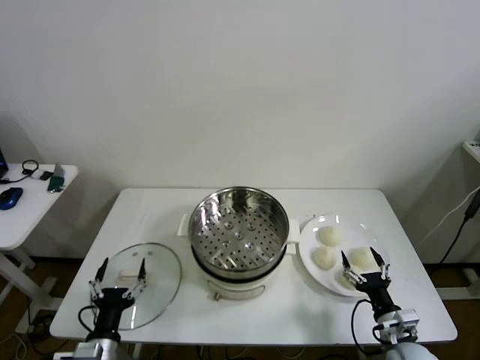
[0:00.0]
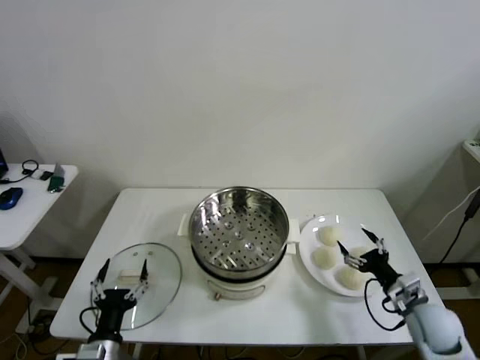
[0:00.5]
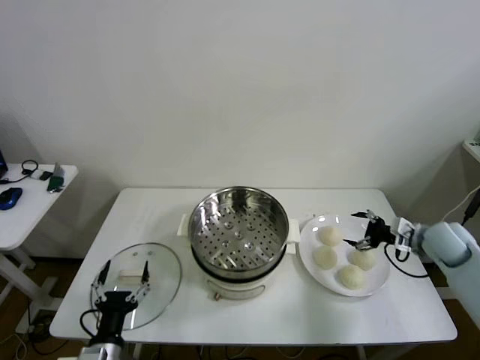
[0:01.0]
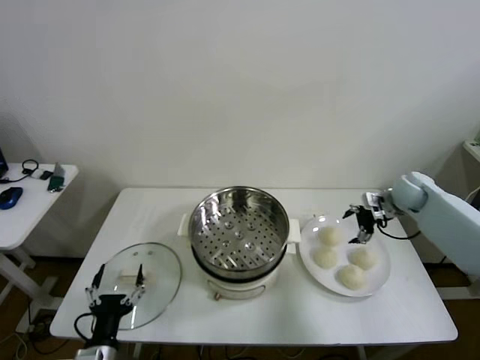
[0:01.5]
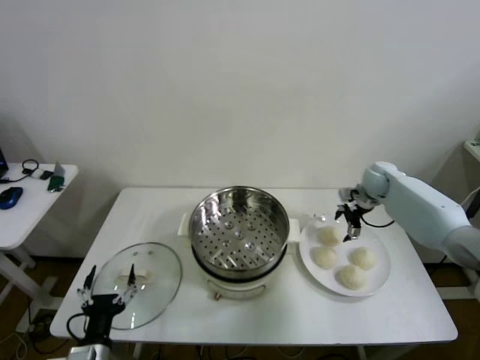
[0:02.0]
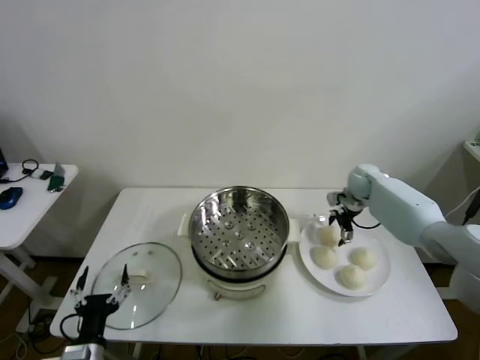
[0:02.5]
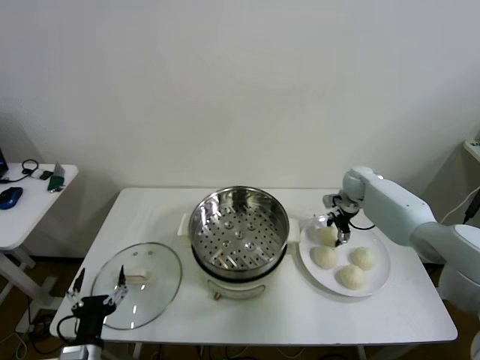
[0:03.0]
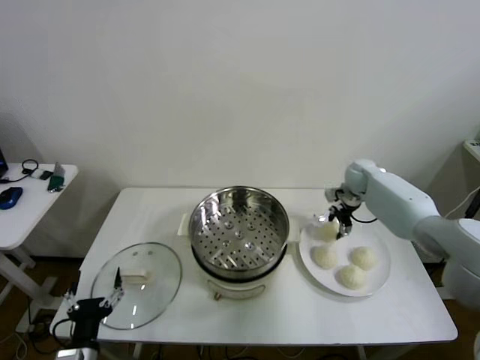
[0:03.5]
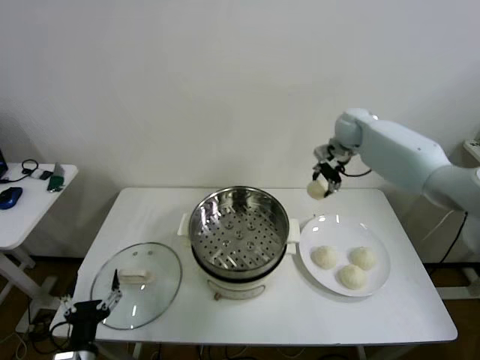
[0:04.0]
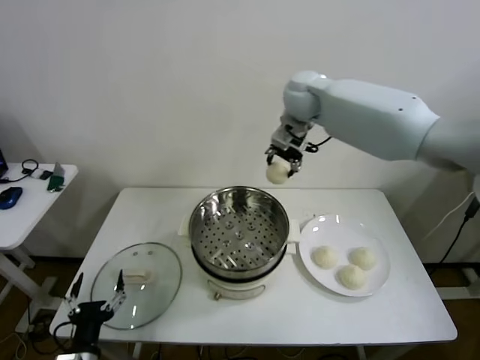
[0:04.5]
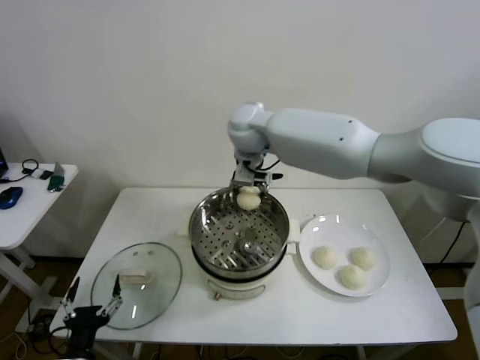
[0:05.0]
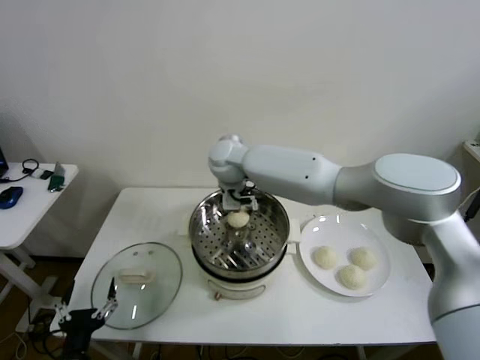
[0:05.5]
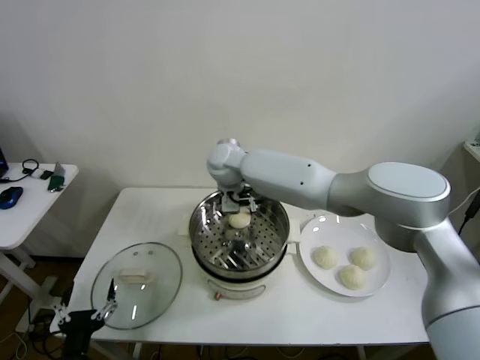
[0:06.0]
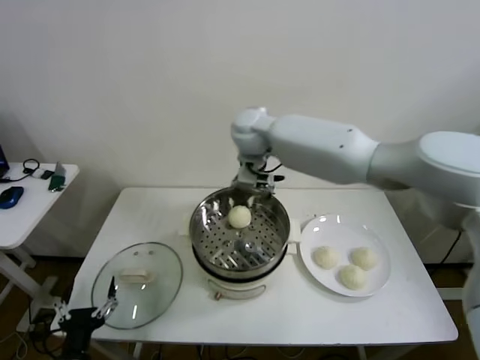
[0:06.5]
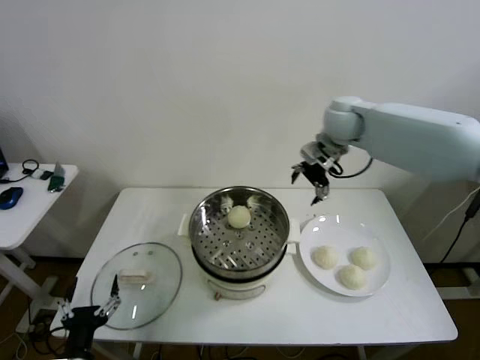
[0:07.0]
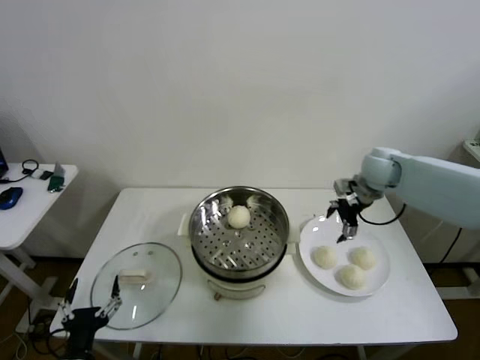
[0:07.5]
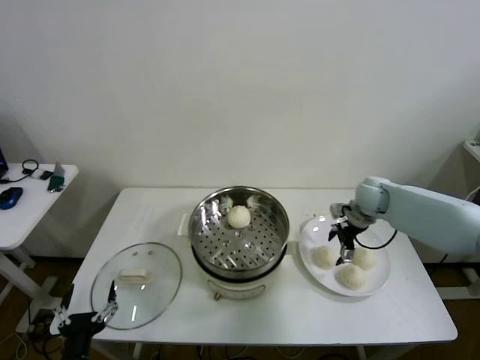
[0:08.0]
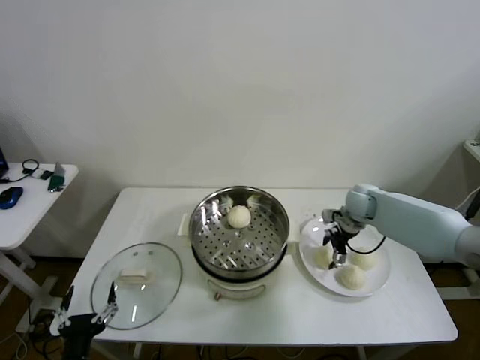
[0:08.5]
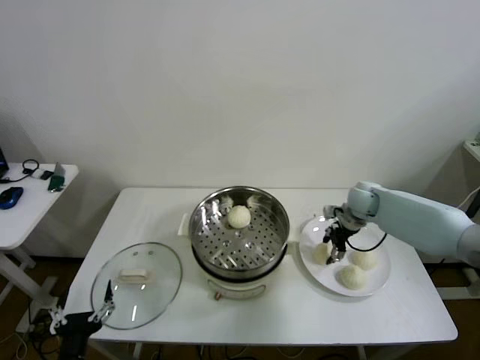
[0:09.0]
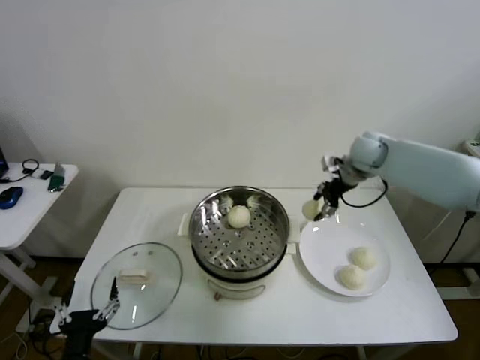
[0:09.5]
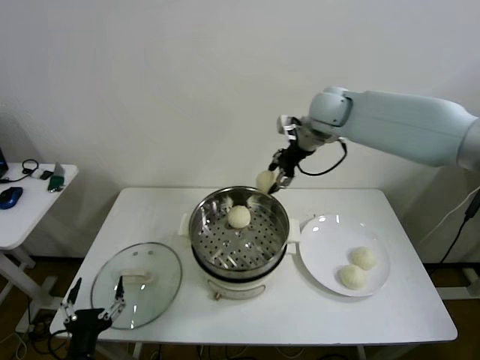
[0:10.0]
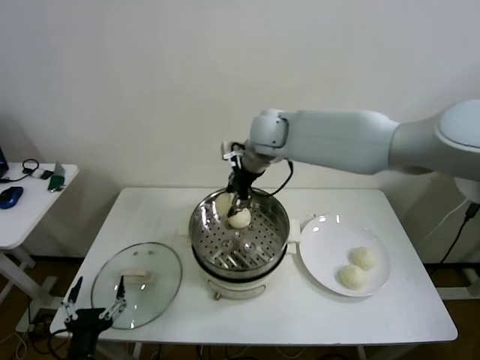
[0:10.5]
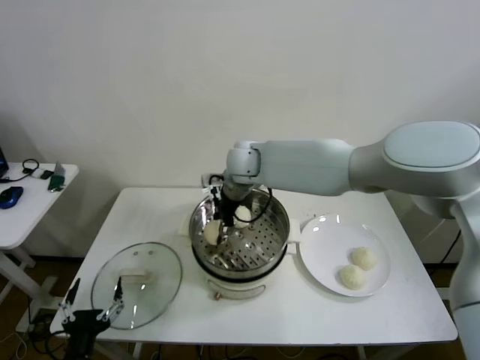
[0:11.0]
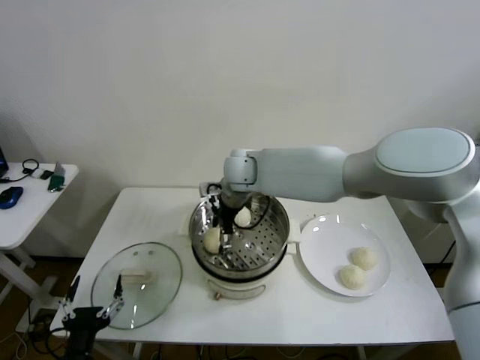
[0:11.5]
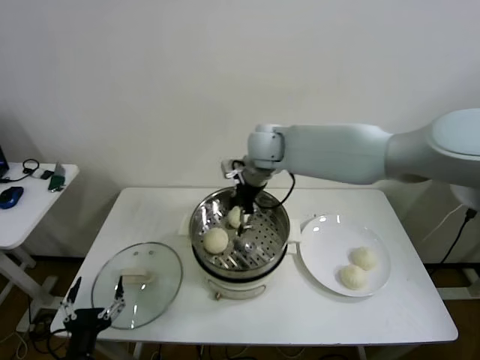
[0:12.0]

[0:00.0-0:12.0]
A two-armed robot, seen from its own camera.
Step, 0:00.0 to 0:03.0: Grasp the baozi in the plate with right gripper.
Step, 0:03.5 to 0:06.0: Place the baozi on the steamer with right gripper.
Step, 0:06.5 to 0:08.5: Grasp the baozi in the plate with right gripper.
Step, 0:09.0 to 0:11.5: Place the baozi on the steamer with right gripper.
0:02.0 to 0:04.0: The right gripper moves upward and to the left, about 20 cm, and closes its fingers.
0:04.0 to 0:06.0: The right gripper shifts roughly 30 cm to the left, and opens up.
0:06.0 to 0:08.0: The right gripper is displaced to the right by roughly 35 cm.
0:08.0 to 0:10.0: The right gripper is displaced upward and to the left by some 30 cm, and closes its fingers.
0:10.0 to 0:12.0: The right gripper travels to the left and downward by approximately 10 cm, and opens its fingers.

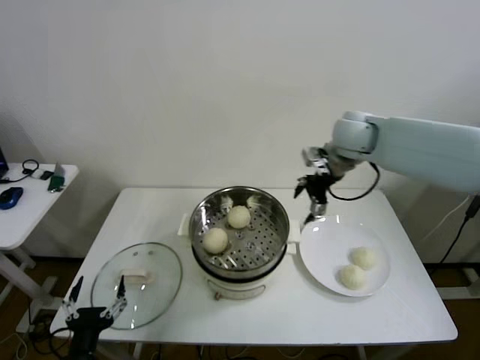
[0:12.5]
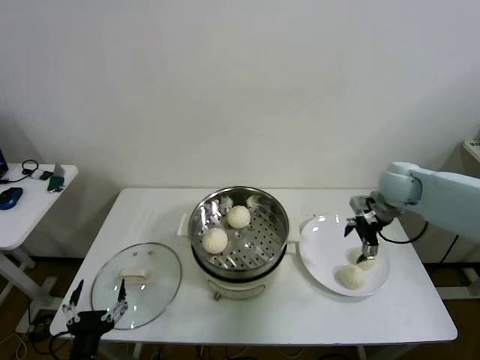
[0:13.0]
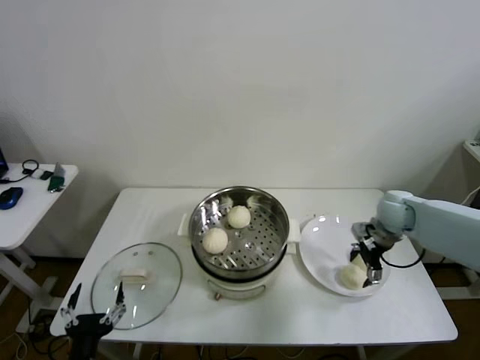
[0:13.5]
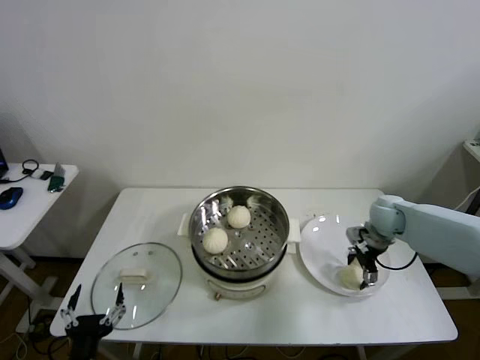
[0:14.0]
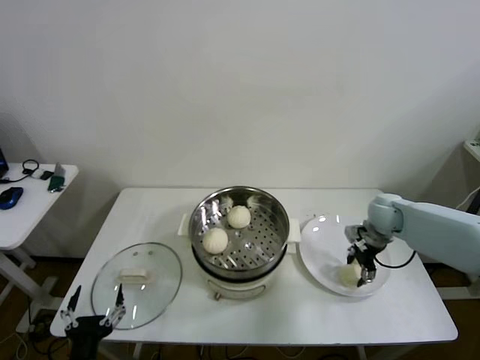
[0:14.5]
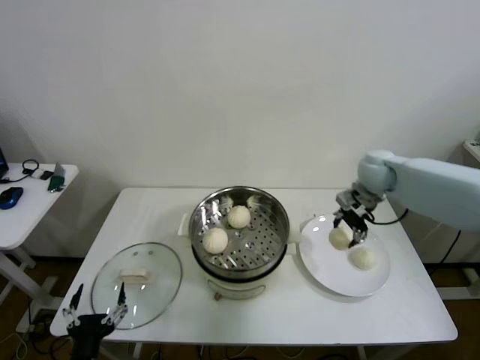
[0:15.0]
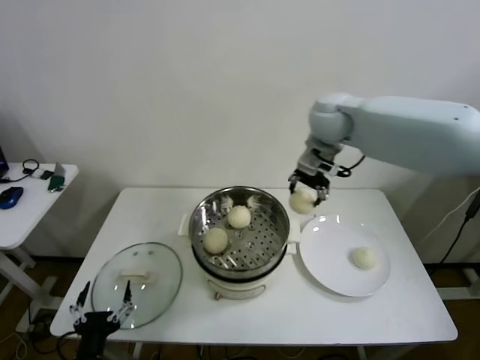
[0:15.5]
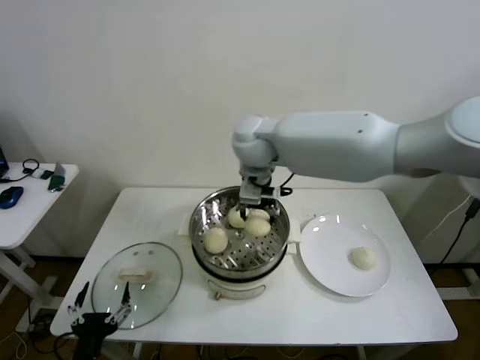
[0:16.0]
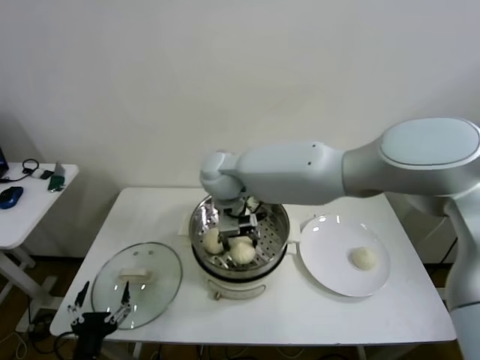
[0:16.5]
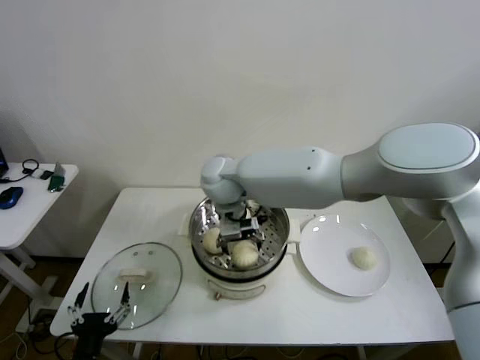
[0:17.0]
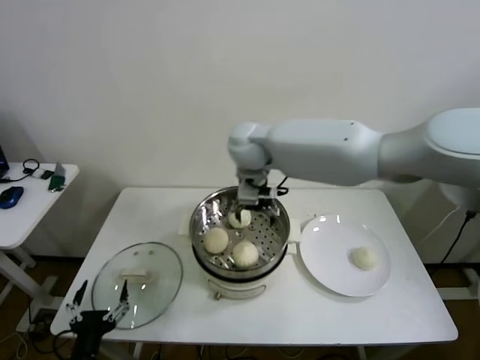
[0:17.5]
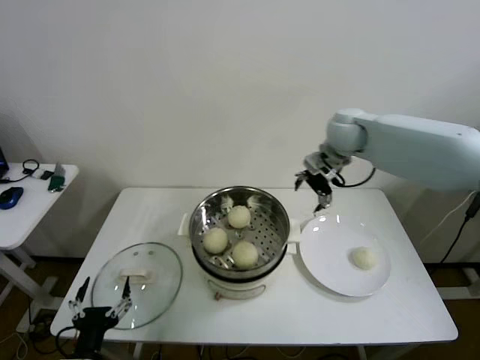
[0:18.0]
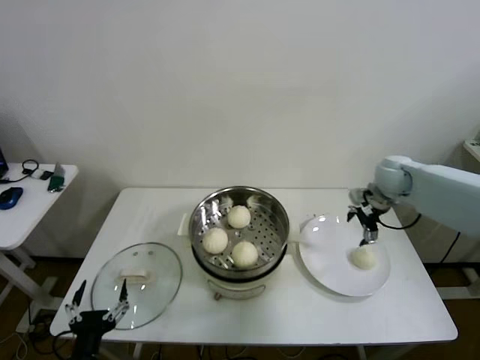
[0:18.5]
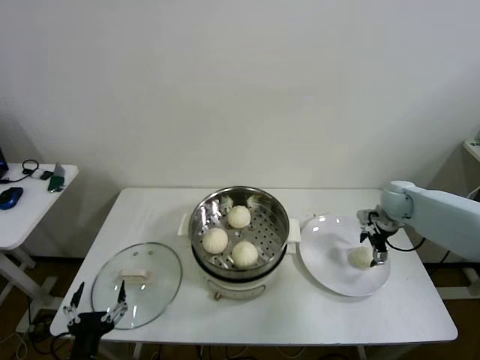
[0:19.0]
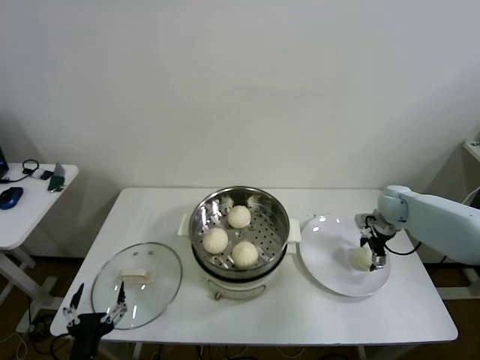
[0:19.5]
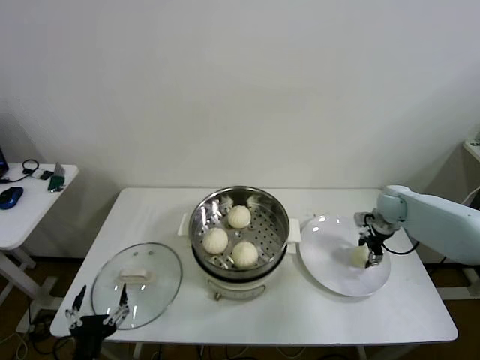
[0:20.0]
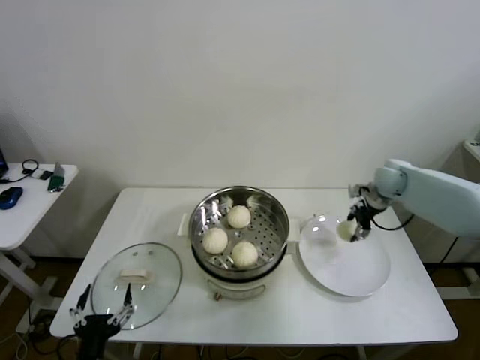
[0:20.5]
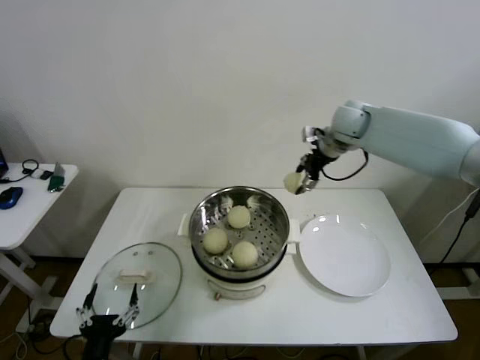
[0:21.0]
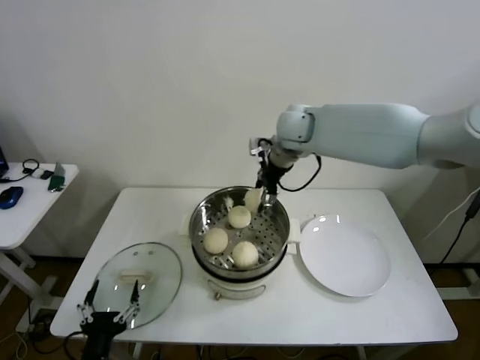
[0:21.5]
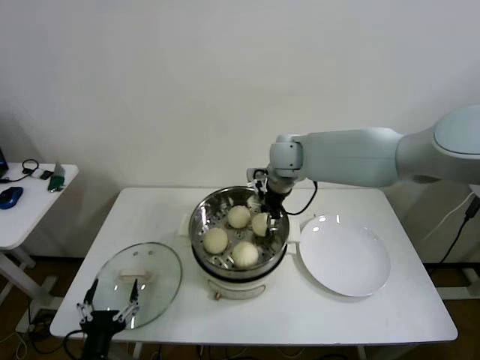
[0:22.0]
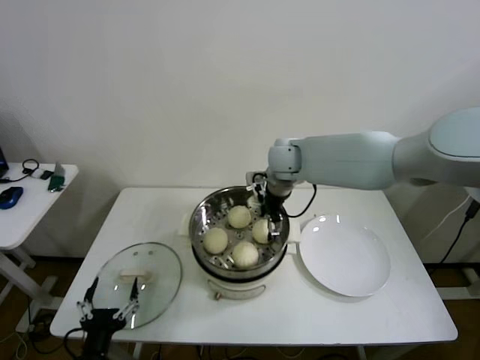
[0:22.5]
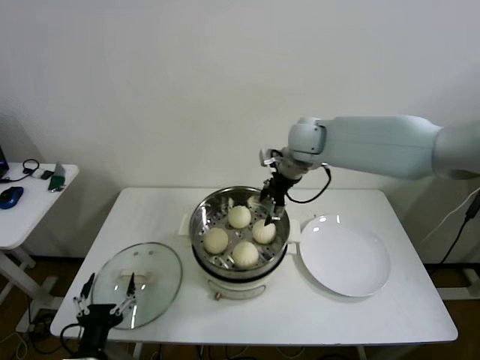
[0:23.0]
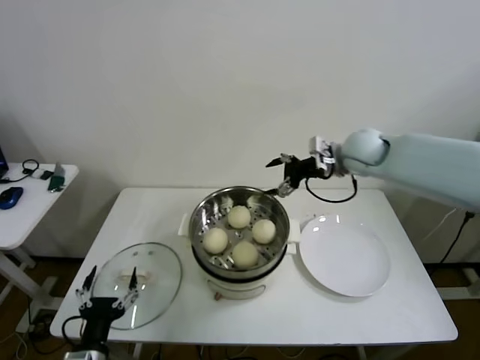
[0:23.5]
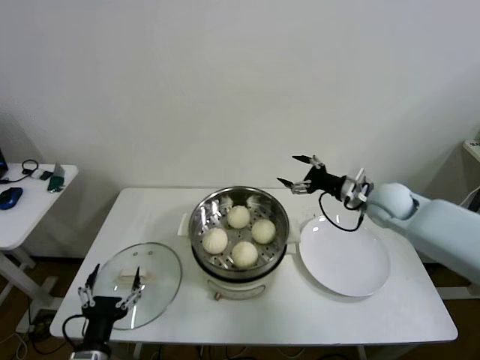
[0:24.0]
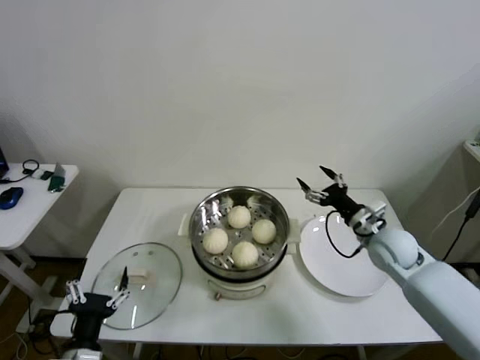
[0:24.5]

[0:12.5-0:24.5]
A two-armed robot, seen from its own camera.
Step, 0:12.5 to 0:14.0: Grasp the baozi in the plate with right gripper.
Step, 0:14.5 to 0:16.5: Place the baozi on the steamer with right gripper.
Step, 0:17.5 to 0:19.5: Grasp the baozi in the plate with right gripper.
Step, 0:20.0 to 0:22.0: Place the baozi on the steamer with right gripper.
0:12.5 to 0:14.5: The right gripper is displaced downward and to the right by some 25 cm, and closes its fingers.
0:14.5 to 0:16.5: The right gripper shifts roughly 40 cm to the left.
0:16.5 to 0:18.5: The right gripper shifts about 40 cm to the right, and opens up.
0:18.5 to 0:20.5: The right gripper travels downward and back again, about 10 cm each way, and closes.
0:20.5 to 0:22.5: The right gripper is displaced to the left by about 30 cm, and opens its fingers.
0:22.5 to 0:24.5: The right gripper travels to the right, backward and downward by some 30 cm.

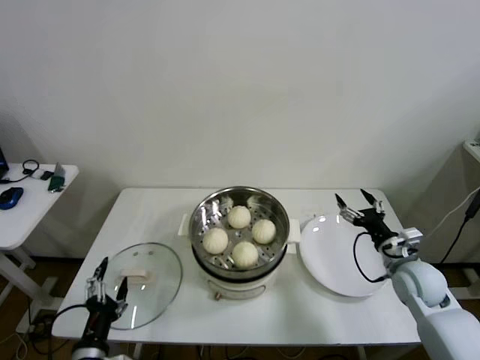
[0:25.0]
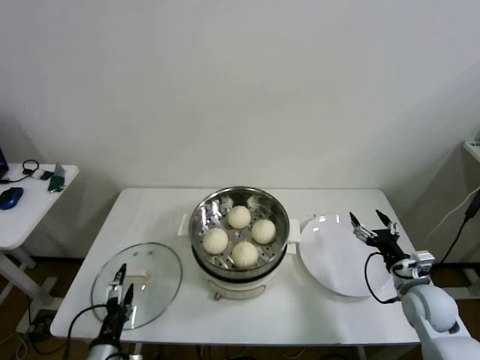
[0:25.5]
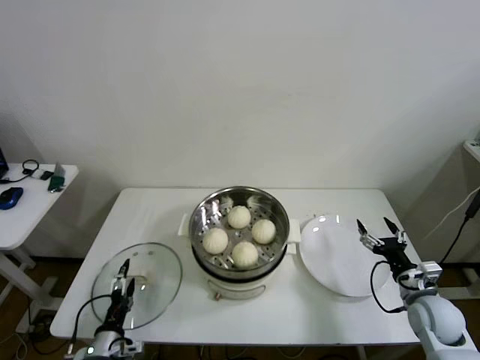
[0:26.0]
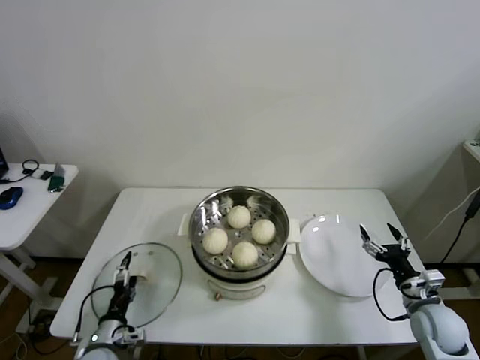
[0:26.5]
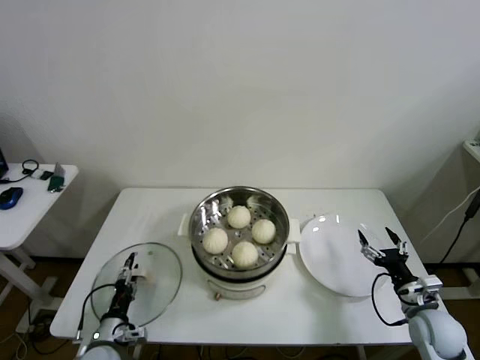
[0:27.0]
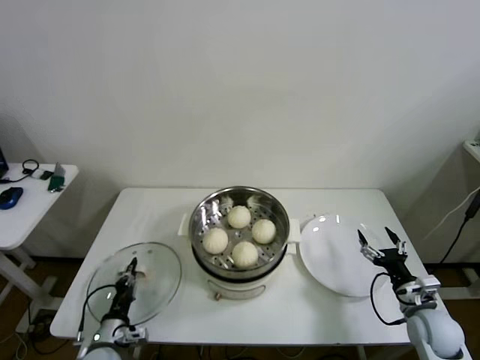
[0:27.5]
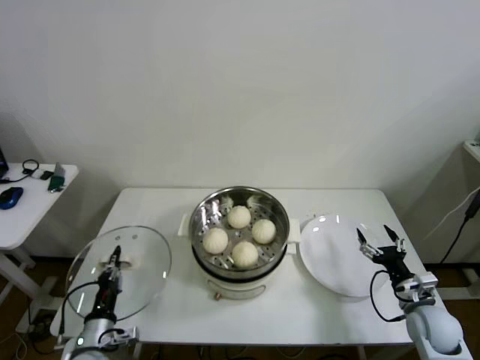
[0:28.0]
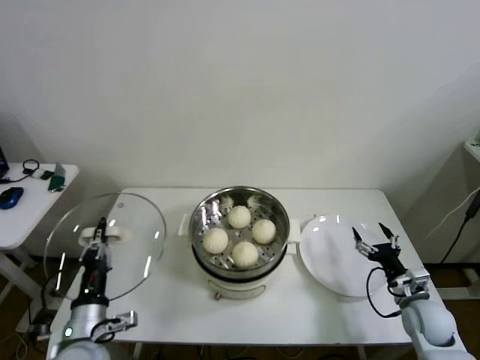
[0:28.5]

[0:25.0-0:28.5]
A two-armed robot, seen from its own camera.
Step, 0:25.0 to 0:27.0: Grasp the pot lid with left gripper.
0:25.0 to 0:27.0: The left gripper moves downward and forward, some 15 cm. The right gripper goes roughly 10 cm backward and downward.
0:27.0 to 0:28.5: The left gripper moves upward, approximately 15 cm, and closes up.
